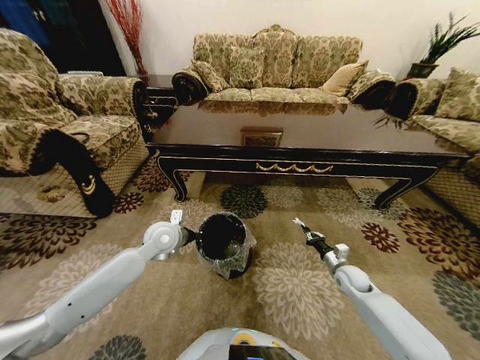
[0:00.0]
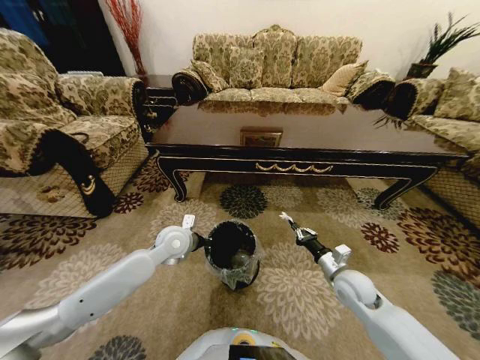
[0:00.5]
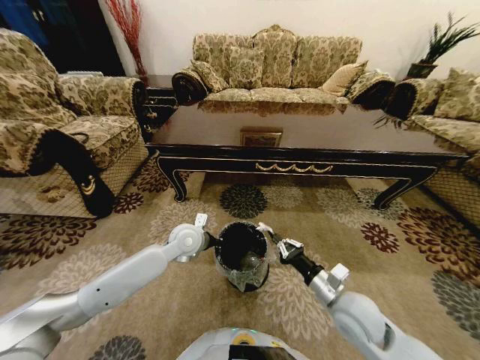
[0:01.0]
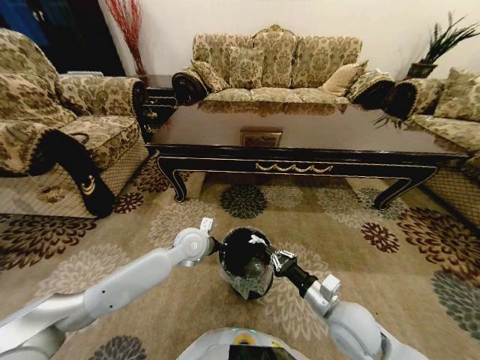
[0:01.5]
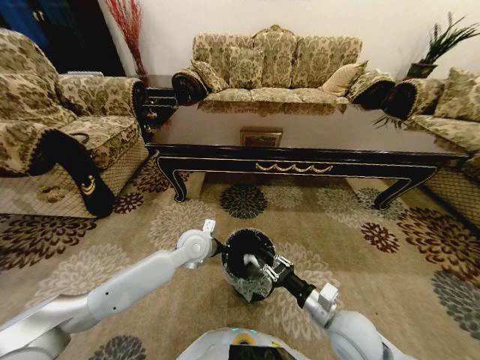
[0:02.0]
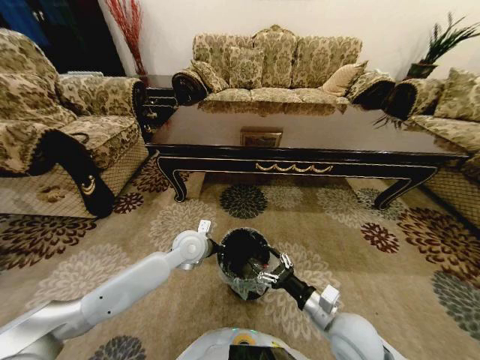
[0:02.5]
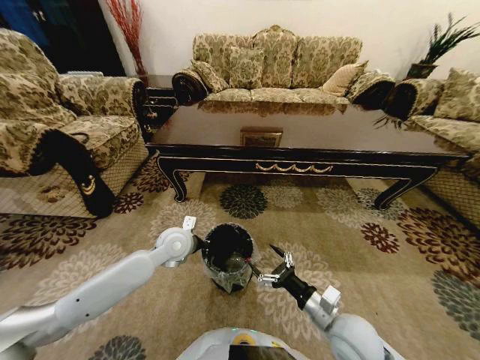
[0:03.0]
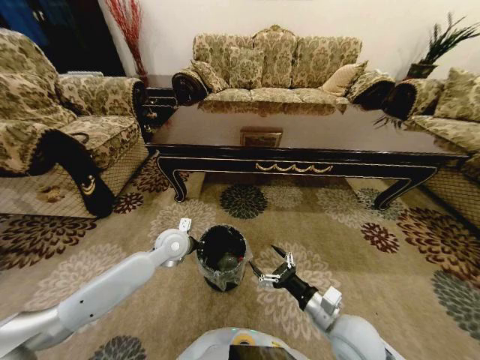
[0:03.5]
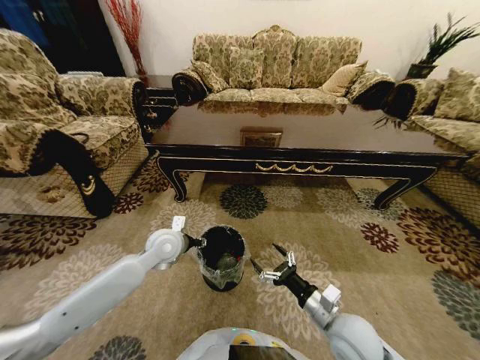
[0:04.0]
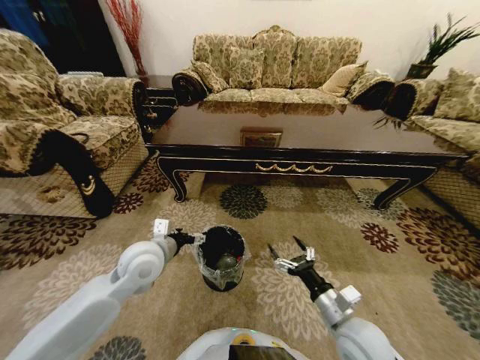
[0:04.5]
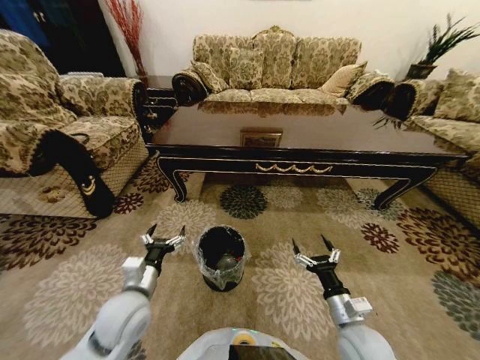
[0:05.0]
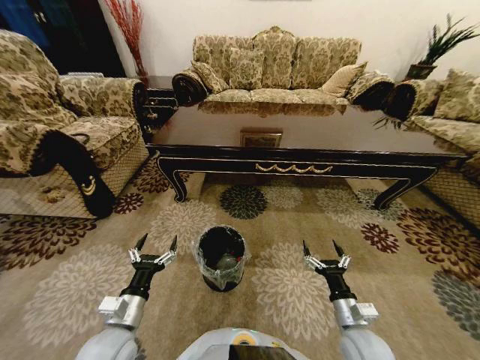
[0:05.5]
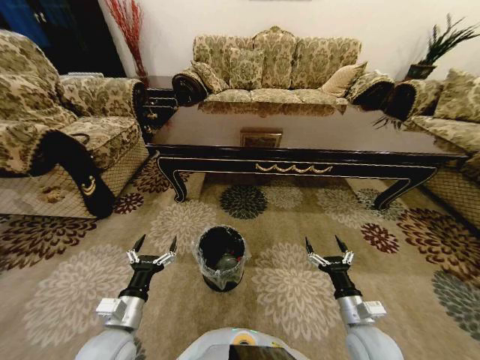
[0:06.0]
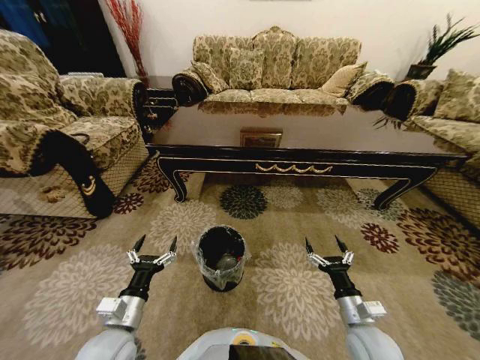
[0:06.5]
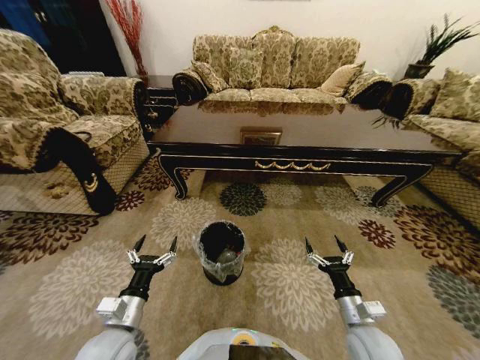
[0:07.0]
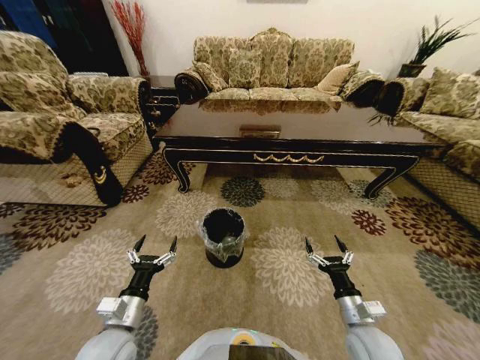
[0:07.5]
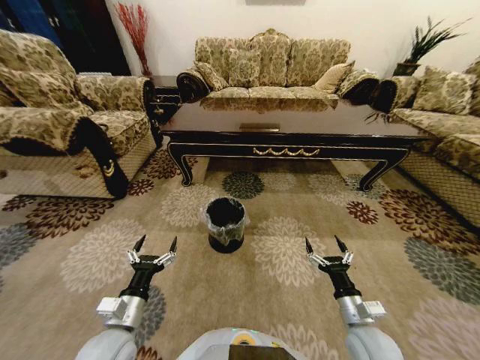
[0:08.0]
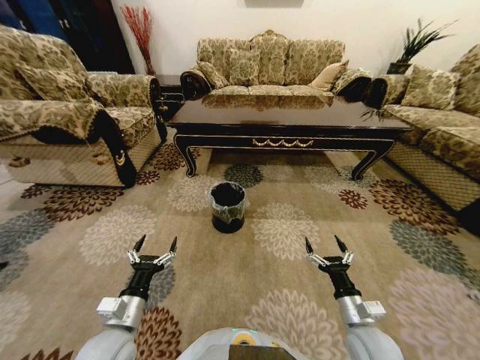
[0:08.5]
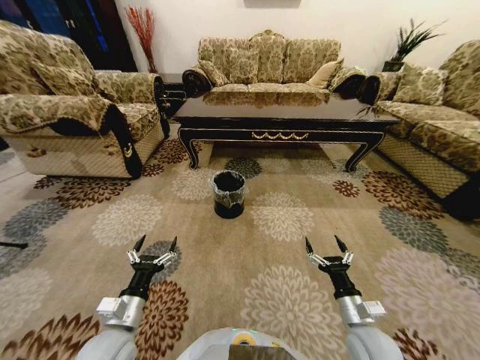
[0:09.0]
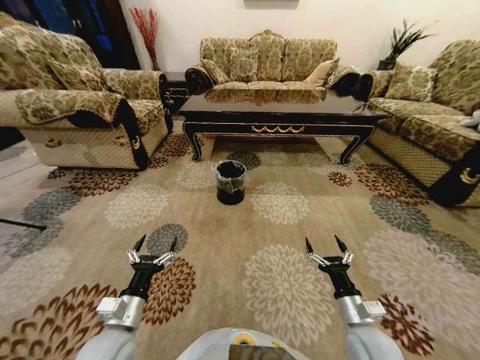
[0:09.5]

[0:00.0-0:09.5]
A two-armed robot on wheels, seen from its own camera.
Task of the whole recording: Move to the front of the table and pick up the trash from the floor, then place it into the trash bin.
0:00.0 to 0:02.0: The left gripper is displaced to the right by approximately 10 cm. Meanwhile the right gripper heads backward, to the left and upward, covering roughly 25 cm.
0:02.0 to 0:04.0: The right gripper opens. Meanwhile the left gripper goes roughly 10 cm to the left, and opens its fingers.
0:04.0 to 0:05.5: The right gripper travels downward and to the right by some 10 cm. The left gripper heads backward, covering roughly 20 cm, and opens its fingers.
